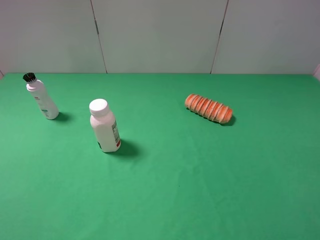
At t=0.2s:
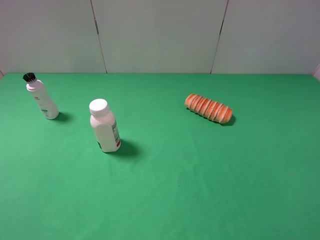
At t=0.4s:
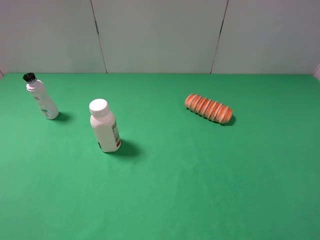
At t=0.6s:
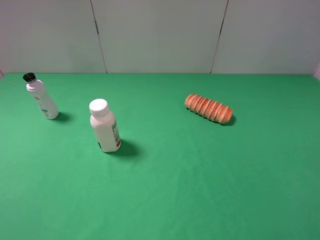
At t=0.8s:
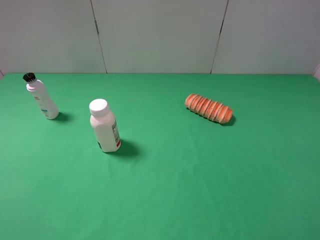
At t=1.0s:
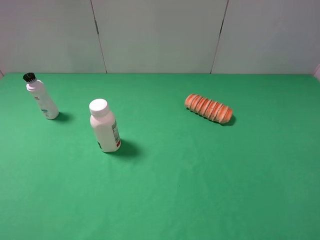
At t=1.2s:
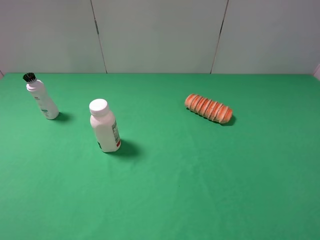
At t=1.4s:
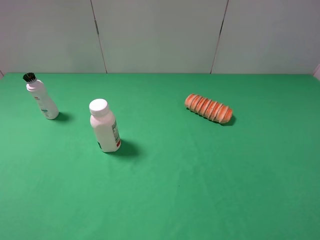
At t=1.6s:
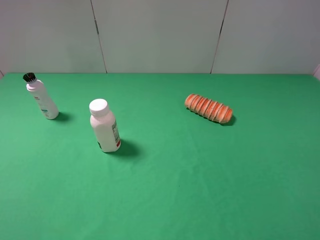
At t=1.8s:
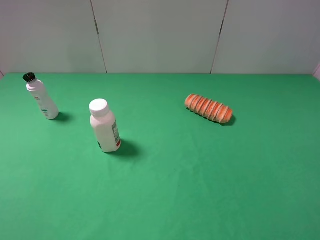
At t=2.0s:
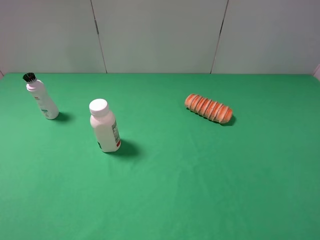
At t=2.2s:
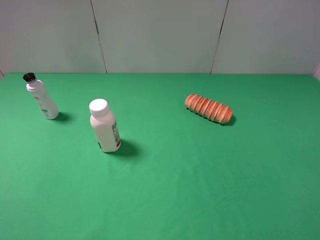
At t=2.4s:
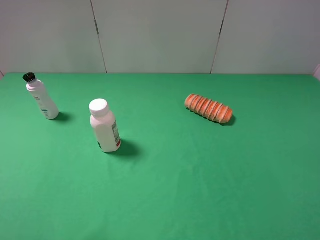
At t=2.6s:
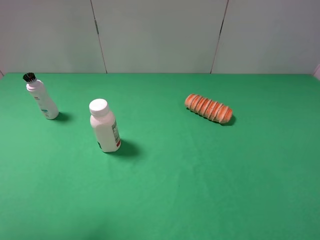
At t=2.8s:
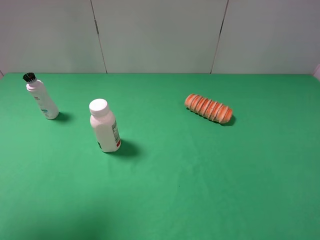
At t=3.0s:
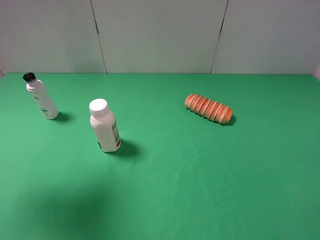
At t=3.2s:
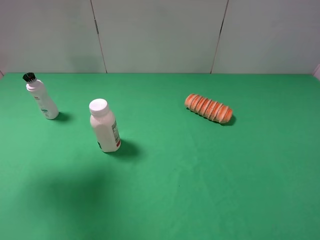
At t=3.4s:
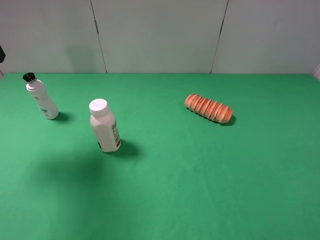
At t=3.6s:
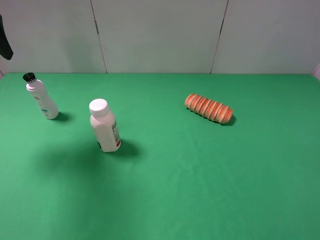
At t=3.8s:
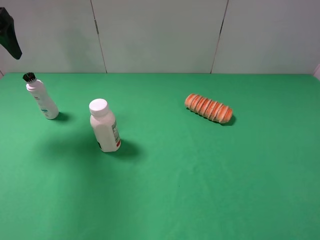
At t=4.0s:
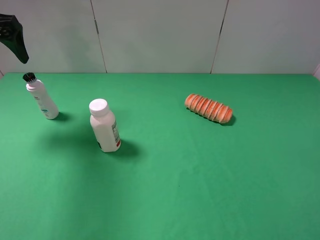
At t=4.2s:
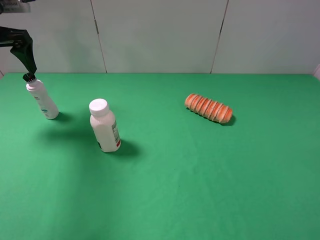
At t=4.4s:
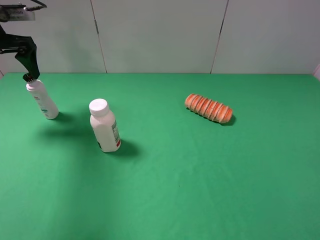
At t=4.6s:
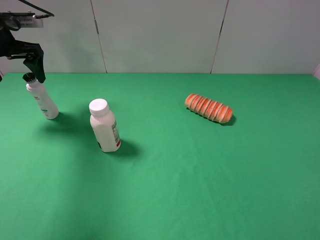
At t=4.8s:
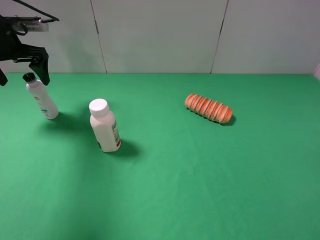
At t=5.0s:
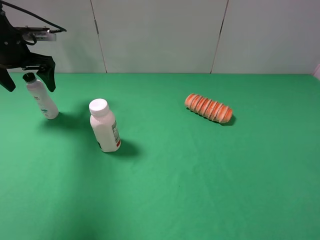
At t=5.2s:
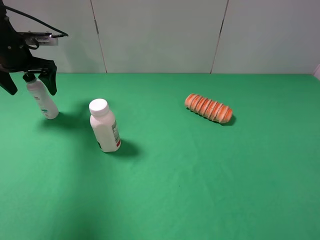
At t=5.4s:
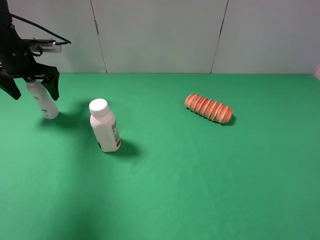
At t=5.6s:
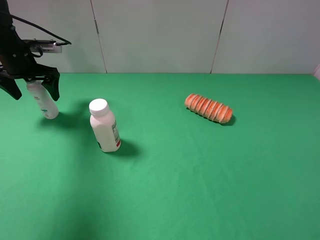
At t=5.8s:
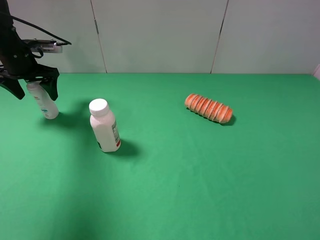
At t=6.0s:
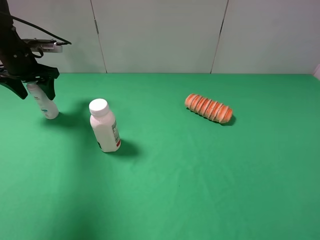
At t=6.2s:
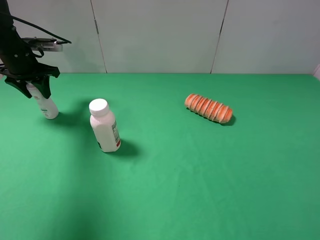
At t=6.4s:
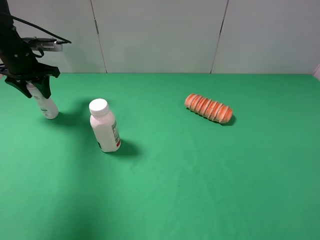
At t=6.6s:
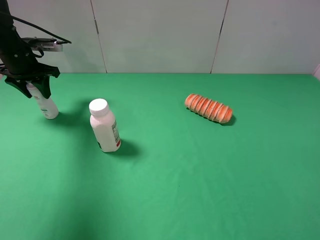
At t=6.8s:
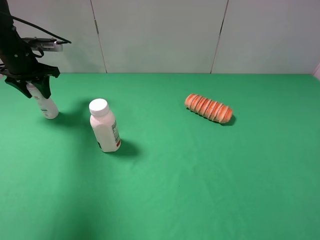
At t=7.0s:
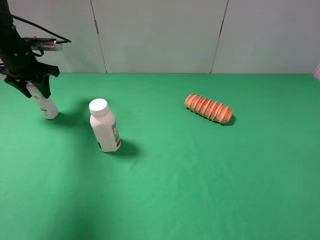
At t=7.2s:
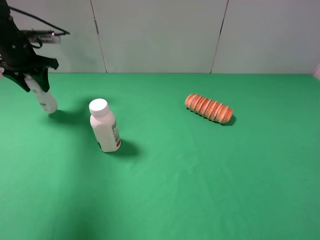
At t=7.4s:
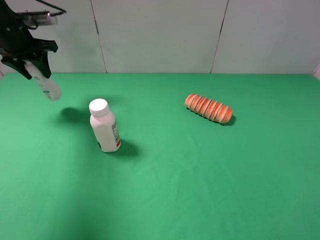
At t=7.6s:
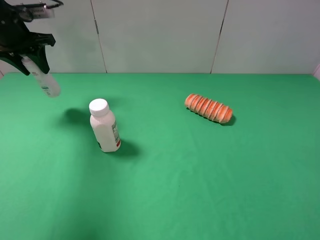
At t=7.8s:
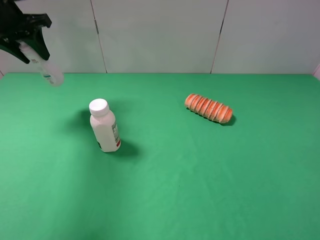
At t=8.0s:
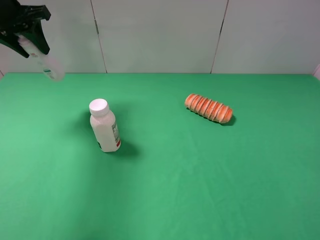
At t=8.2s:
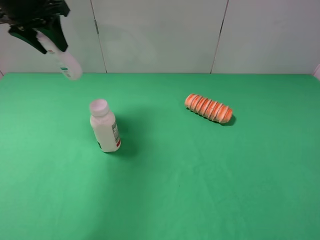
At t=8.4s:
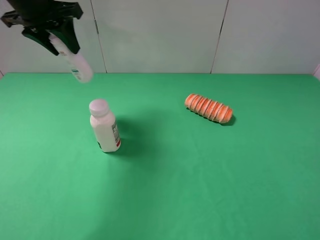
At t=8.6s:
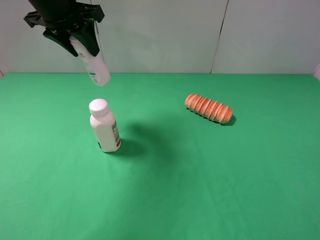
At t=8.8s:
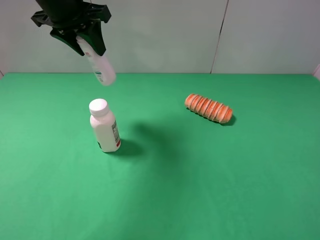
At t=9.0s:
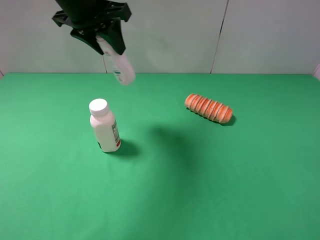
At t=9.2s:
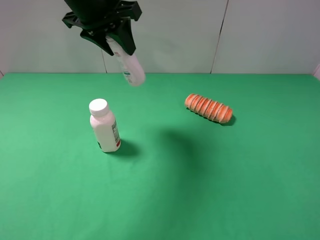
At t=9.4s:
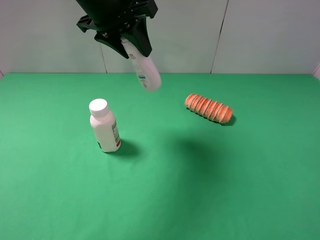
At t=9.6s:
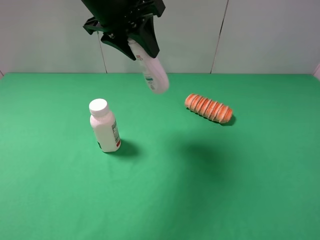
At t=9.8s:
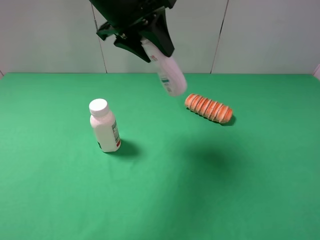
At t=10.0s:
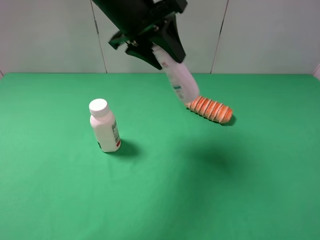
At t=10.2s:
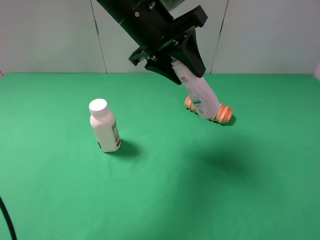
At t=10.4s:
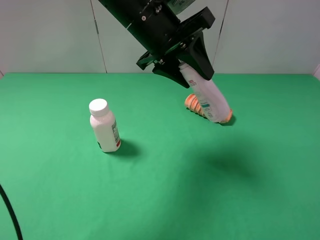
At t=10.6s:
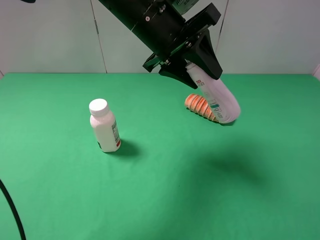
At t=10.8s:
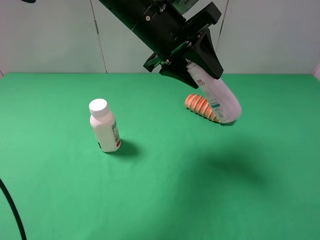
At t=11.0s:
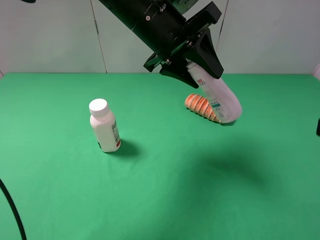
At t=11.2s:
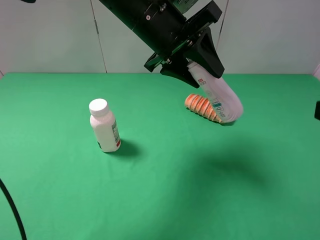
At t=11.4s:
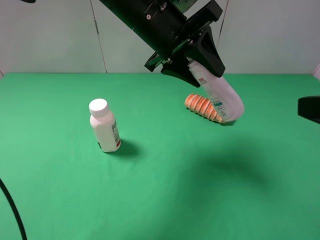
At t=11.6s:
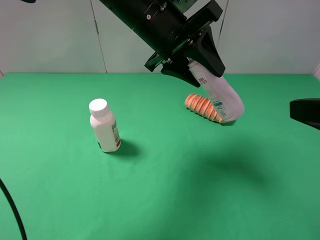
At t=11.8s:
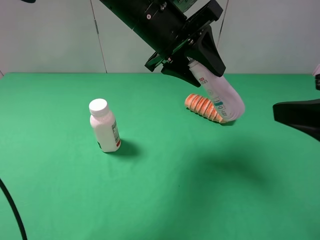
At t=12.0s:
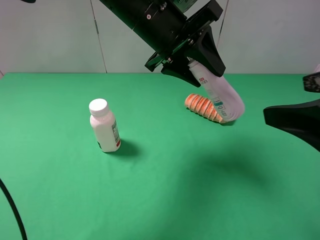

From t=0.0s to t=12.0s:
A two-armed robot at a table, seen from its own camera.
Task of the whole recording: use the left gripper to pick up the item and transfer it from the left gripper to the right gripper.
From t=0.0s to t=1.6s: The two grippers keep their place.
From t=1.6s to t=3.0s: The left gripper goes approximately 25 cm forward and upward.
From t=3.0s to t=4.4s: The left gripper moves forward and downward, some 20 cm.
From t=4.4s to t=6.0s: The left gripper goes approximately 10 cm downward, and closes up.
From t=6.0s to t=7.6s: The left gripper moves upward, some 5 cm.
From t=7.6s to t=9.0s: The left gripper goes about 20 cm to the right.
From t=9.0s to t=10.4s: The left gripper shifts some 10 cm to the right.
From t=10.4s to t=12.0s: The right gripper moves forward and to the left, some 10 cm.

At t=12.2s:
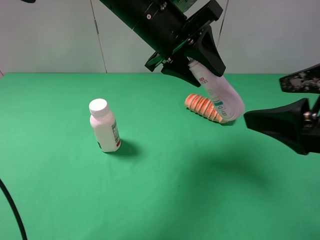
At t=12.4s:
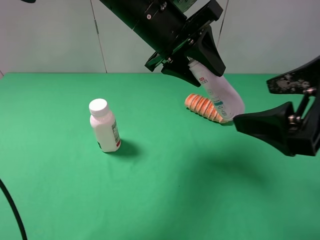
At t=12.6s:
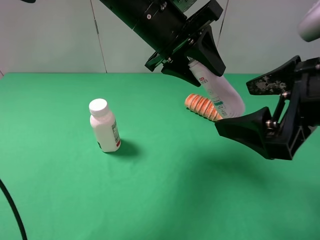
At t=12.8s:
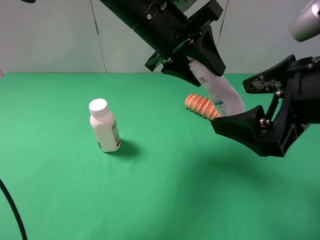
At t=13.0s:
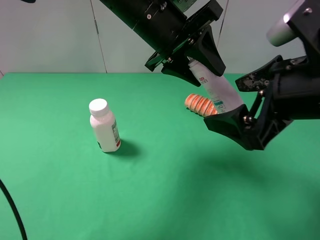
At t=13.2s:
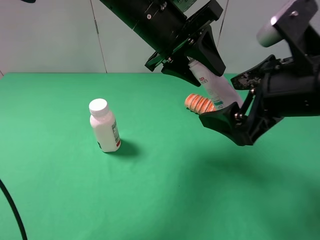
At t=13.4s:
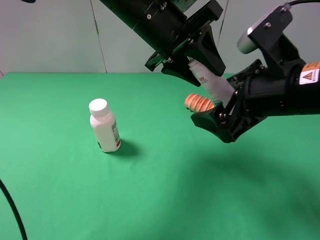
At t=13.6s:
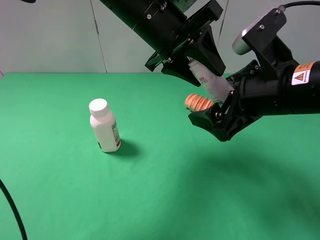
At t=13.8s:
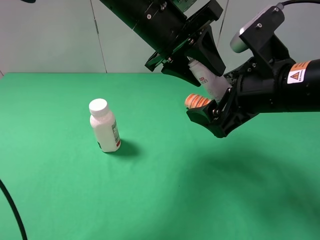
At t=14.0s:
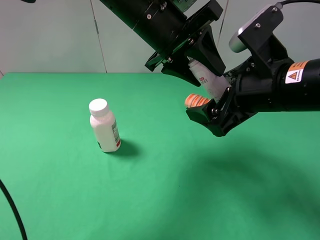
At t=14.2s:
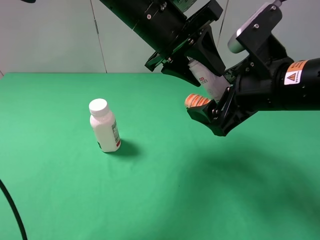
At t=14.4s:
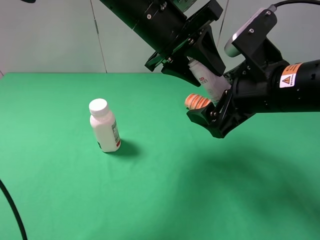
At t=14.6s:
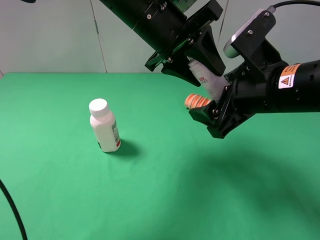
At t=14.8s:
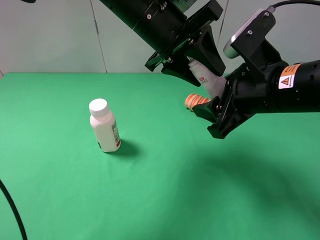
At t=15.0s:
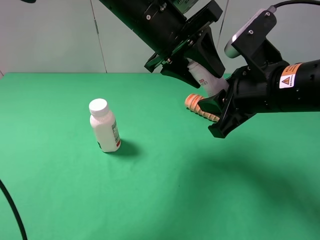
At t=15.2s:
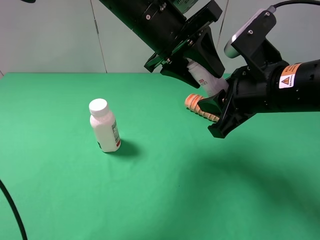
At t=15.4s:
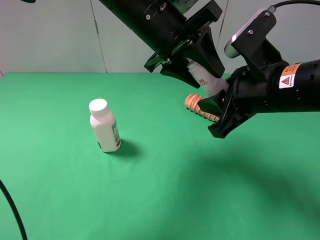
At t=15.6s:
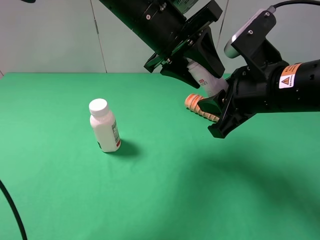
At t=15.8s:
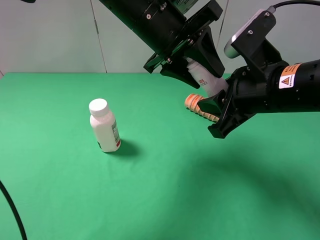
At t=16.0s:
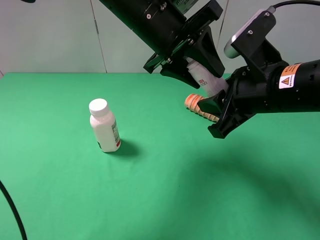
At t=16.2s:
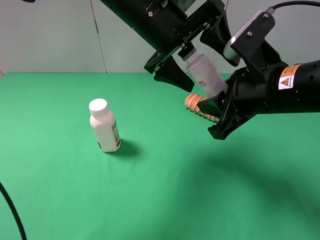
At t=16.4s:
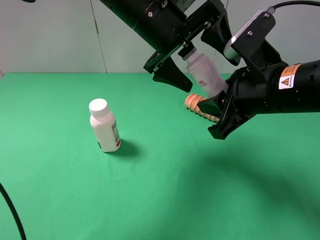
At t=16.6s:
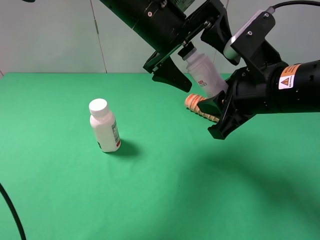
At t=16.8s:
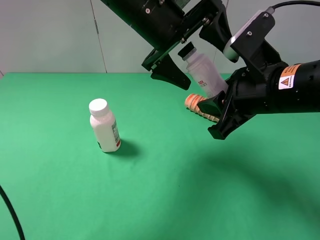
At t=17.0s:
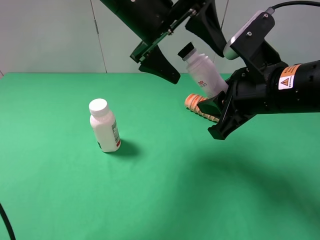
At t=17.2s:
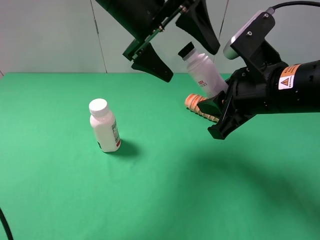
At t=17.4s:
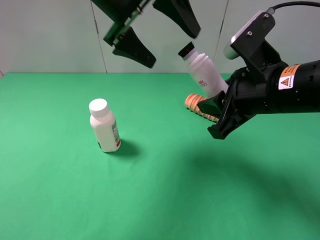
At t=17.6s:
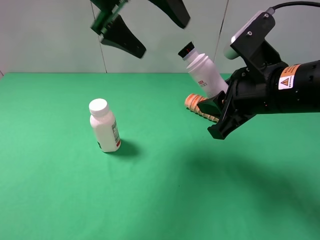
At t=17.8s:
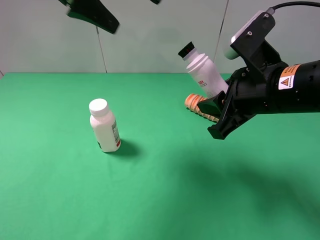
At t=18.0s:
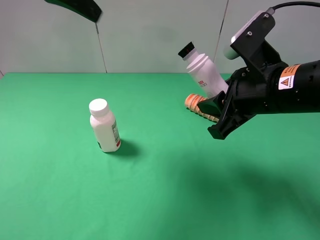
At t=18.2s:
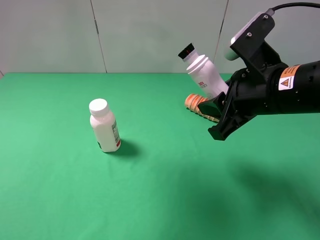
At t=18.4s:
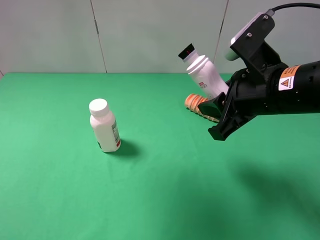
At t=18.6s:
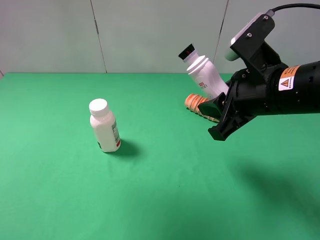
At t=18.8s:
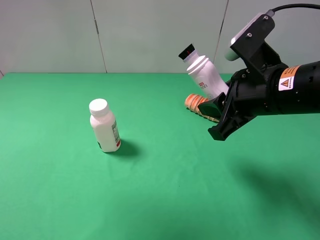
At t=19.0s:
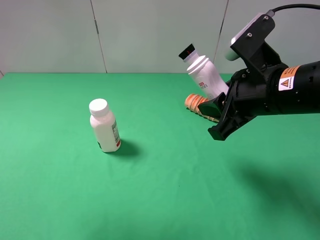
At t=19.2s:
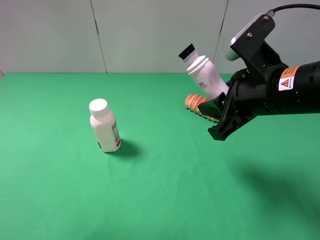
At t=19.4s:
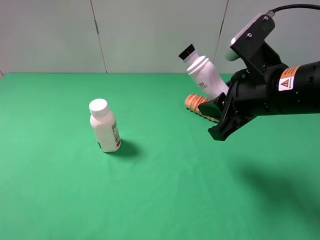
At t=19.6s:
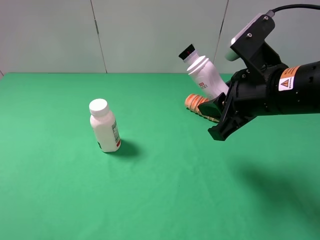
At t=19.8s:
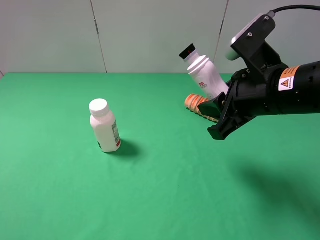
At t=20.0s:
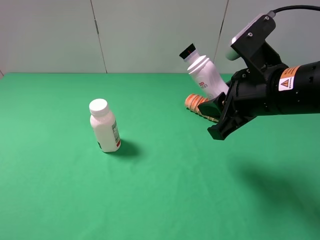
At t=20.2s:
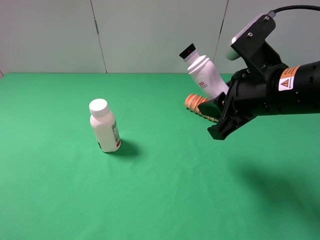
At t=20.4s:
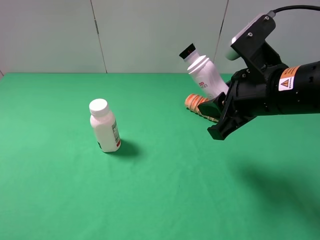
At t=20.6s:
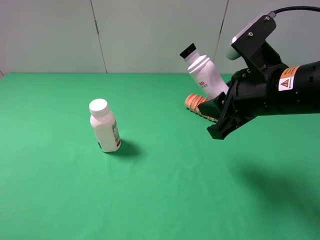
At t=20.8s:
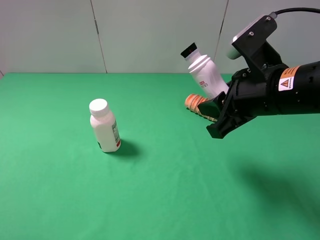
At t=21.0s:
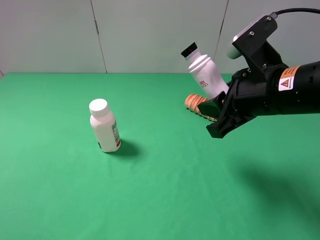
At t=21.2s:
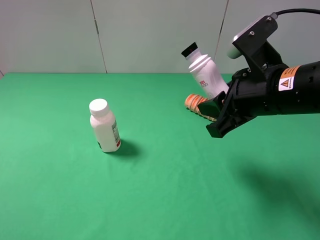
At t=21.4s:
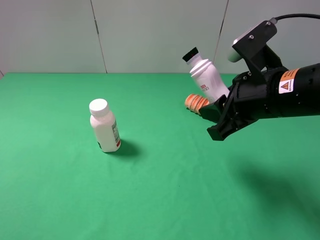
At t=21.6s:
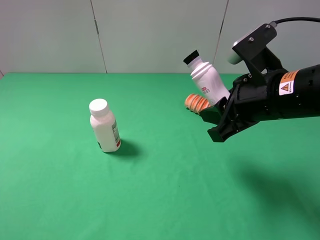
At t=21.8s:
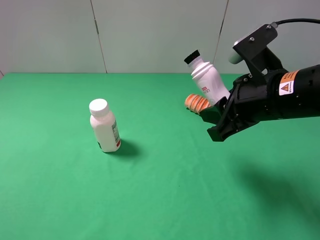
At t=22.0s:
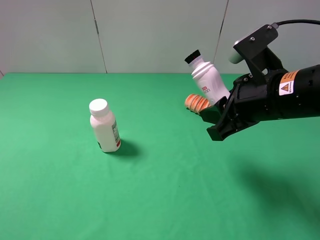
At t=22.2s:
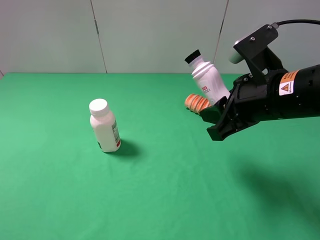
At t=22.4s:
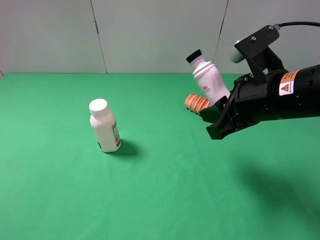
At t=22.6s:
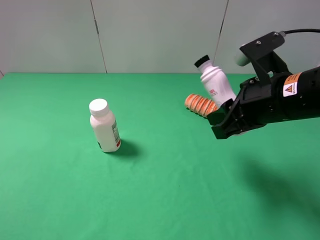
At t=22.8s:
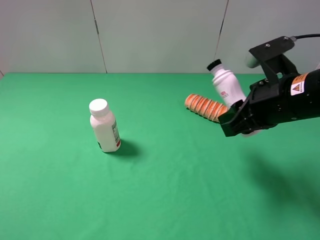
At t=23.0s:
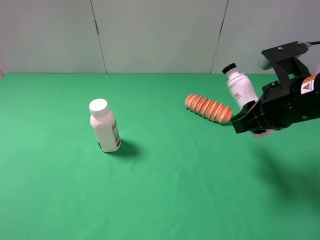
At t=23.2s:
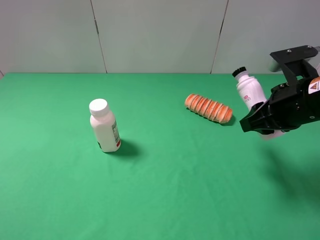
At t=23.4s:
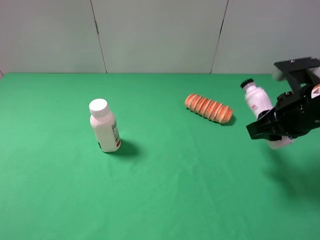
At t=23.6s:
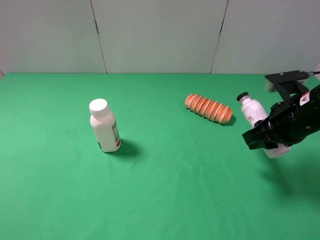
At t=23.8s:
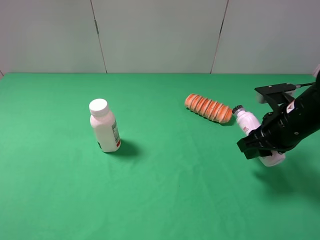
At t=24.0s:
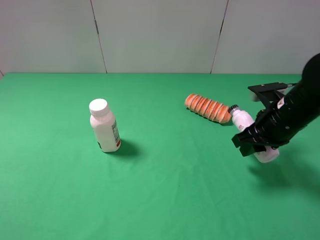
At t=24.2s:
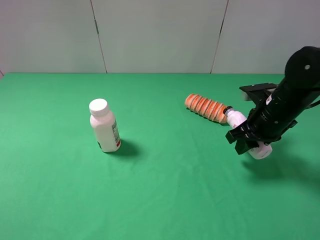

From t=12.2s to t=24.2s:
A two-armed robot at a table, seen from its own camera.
Task of the whole recording: use the left gripper to pick up the item and transfer it from the left gripper to the right gripper.
From t=12.2s to t=13.8s: The right gripper is displaced forward and to the left by about 10 cm.
From t=13.8s to t=15.2s: The right gripper closes its fingers.
From t=15.2s to t=16.6s: The left gripper opens.
From t=16.6s to t=18.2s: The left gripper heads upward, to the left and backward, covering some 25 cm.
From t=18.2s to t=19.8s: The left gripper goes some 30 cm backward, to the left and downward.
From t=22.6s to t=24.2s: The right gripper is displaced downward and forward by roughly 10 cm.
